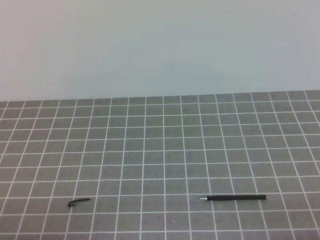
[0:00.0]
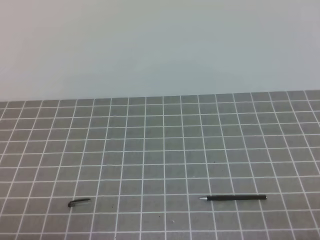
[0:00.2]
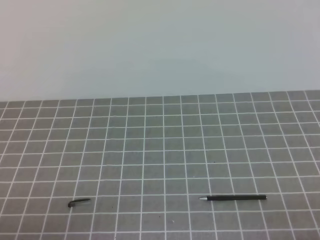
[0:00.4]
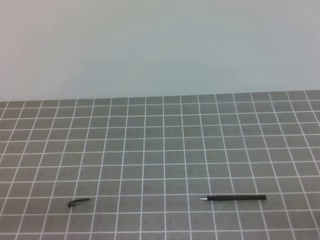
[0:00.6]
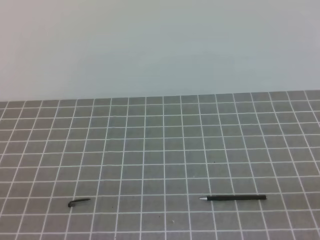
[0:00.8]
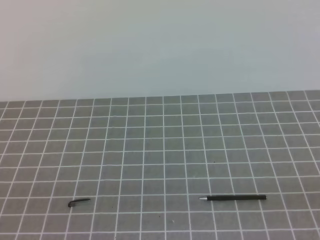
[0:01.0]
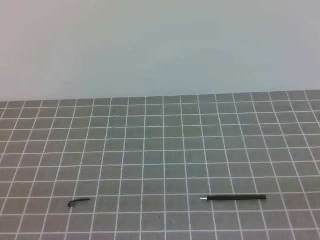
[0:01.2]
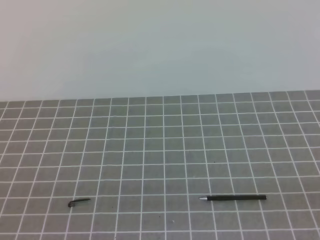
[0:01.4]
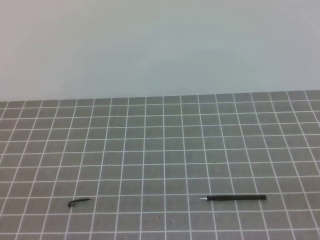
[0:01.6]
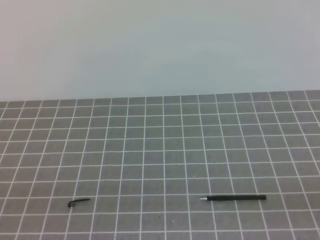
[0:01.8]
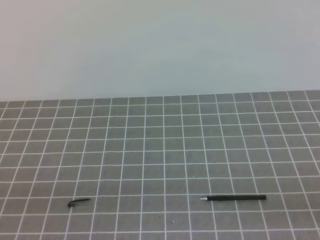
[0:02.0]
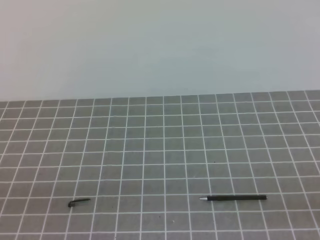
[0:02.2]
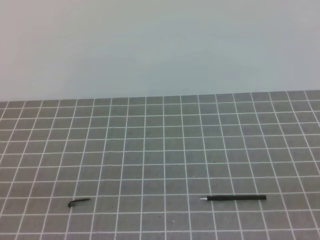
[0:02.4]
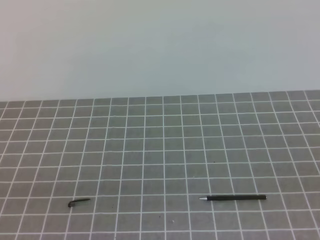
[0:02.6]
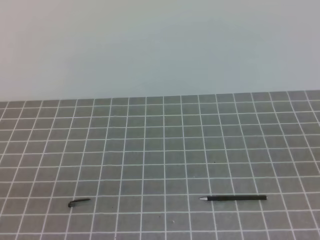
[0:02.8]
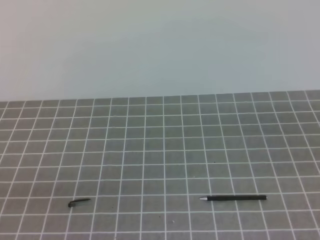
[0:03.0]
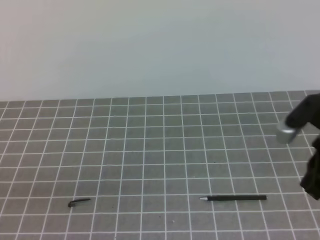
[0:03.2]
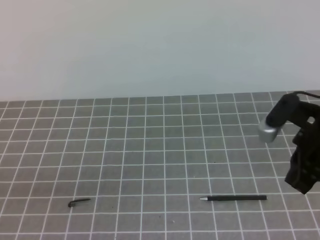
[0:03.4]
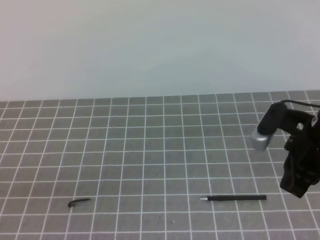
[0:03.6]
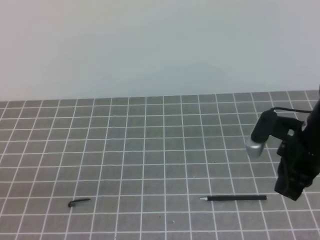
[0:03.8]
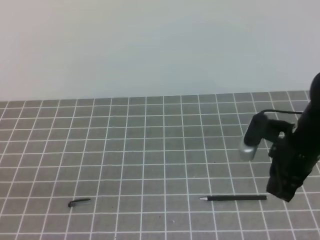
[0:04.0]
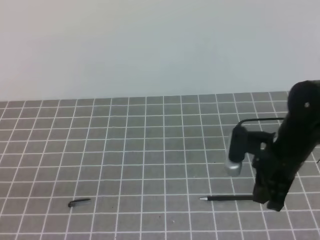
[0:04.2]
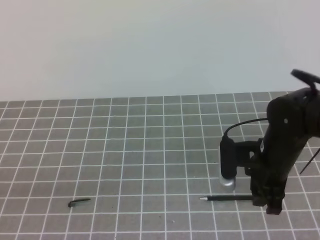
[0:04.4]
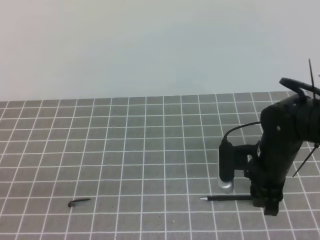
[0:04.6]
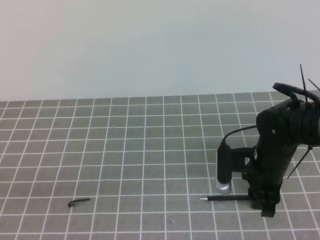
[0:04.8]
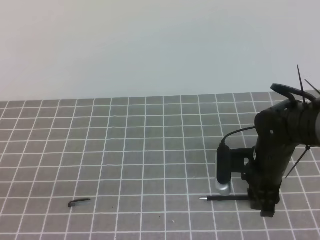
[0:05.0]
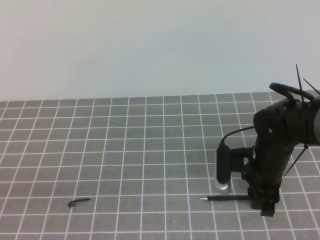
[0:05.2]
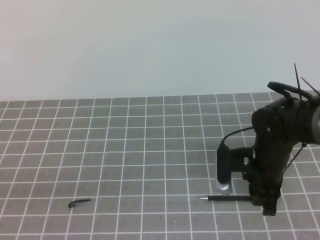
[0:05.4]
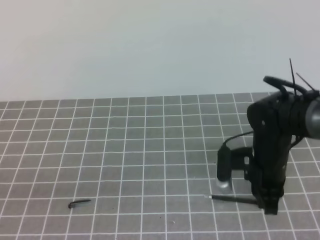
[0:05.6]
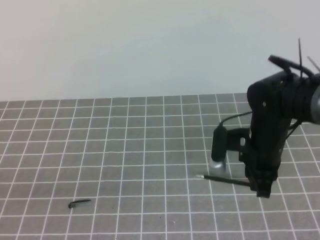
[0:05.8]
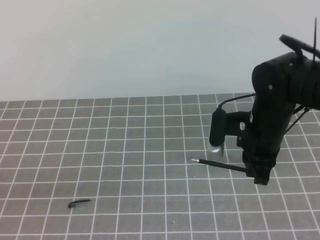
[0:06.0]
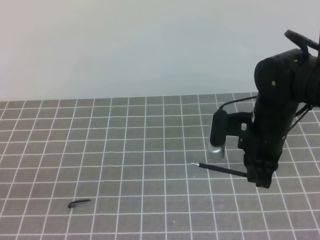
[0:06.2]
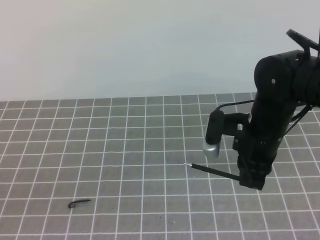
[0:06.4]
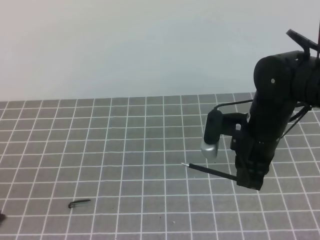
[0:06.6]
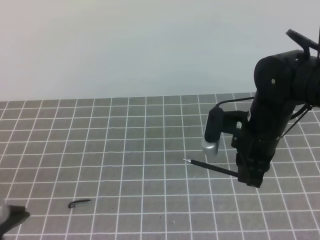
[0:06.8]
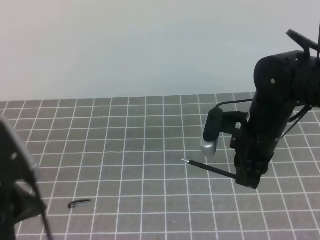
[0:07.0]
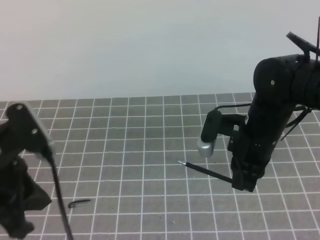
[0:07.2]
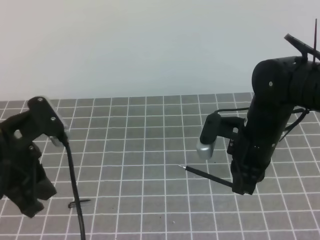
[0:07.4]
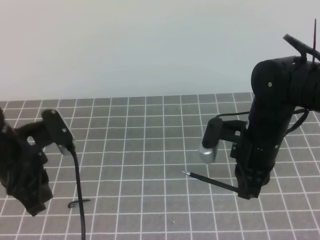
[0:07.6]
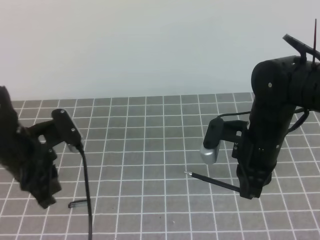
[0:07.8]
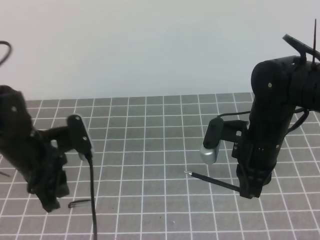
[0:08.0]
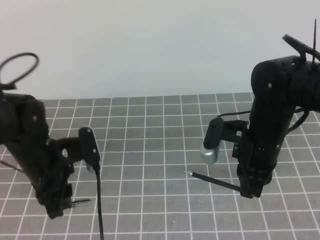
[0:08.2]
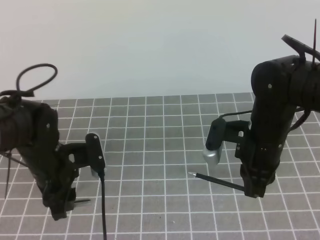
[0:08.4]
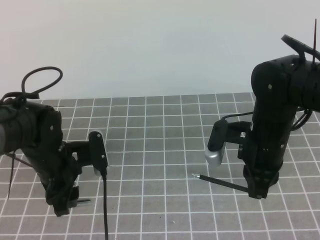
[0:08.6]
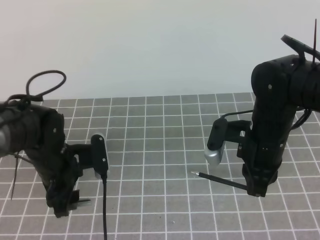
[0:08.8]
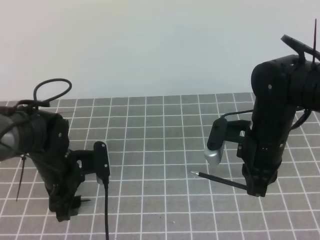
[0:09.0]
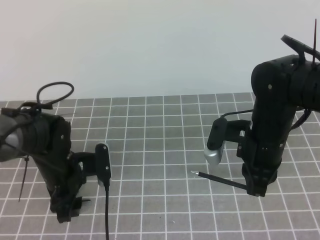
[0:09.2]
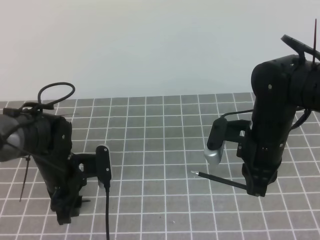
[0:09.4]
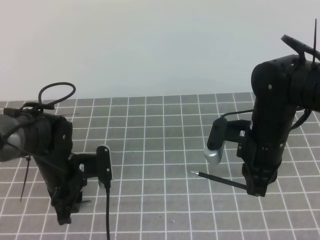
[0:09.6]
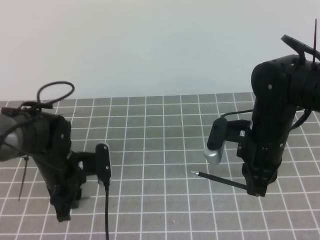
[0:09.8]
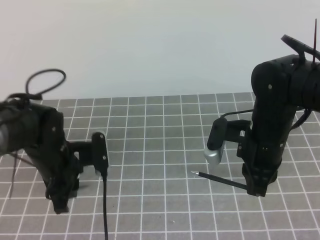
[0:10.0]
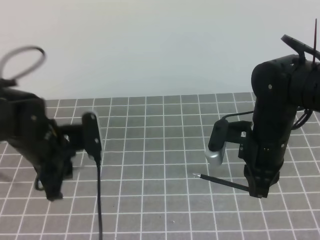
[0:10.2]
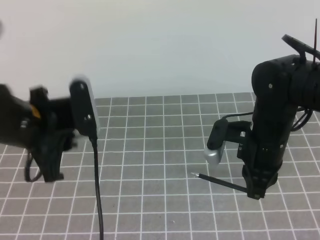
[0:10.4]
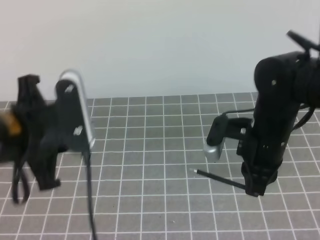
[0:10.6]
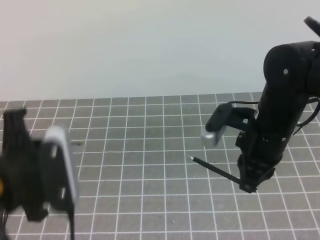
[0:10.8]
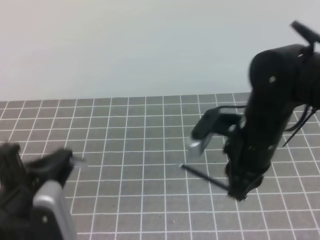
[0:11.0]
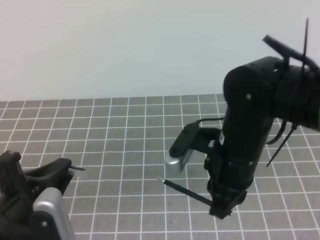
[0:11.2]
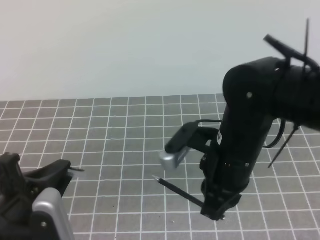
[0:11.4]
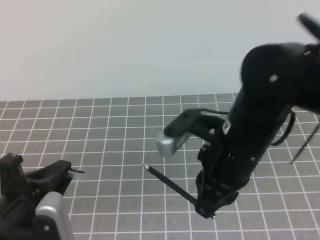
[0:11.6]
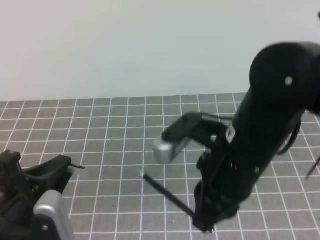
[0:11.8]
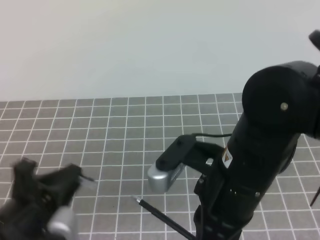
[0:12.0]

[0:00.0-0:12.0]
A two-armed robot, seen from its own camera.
Task of the whole recording: on the grey tablecloth, hold the pen cap in one hand and the pen in the other, then cover the pen cap.
Step, 0:00.0 to 0:03.6: Pick up the pen.
Step, 0:03.8 to 0:06.2: Pick up the pen cap.
0:03.0 to 0:04.4: The right gripper is displaced downward, forward and to the left by roughly 20 cm, and opens.
0:04.4 to 0:06.0: The right gripper closes its fingers.
0:06.0 to 0:07.6: The left gripper shifts some 20 cm forward.
0:07.6 to 0:09.0: The left gripper shifts approximately 10 cm downward and forward, and opens up.
0:09.0 to 0:10.4: The left gripper shifts about 15 cm upward and backward, and closes.
0:10.4 to 0:12.0: The left gripper travels backward and downward by about 15 cm, while the right gripper goes about 15 cm backward, upward and to the left.

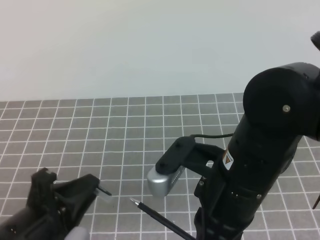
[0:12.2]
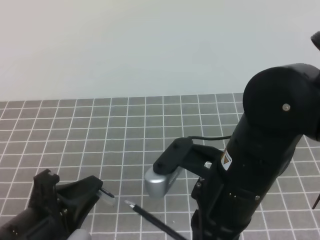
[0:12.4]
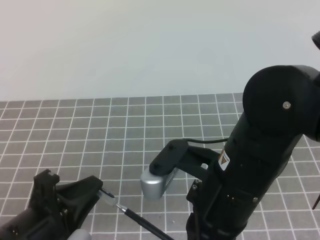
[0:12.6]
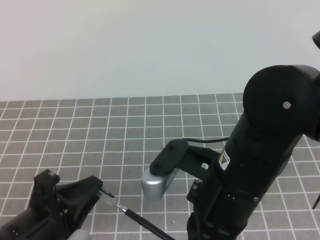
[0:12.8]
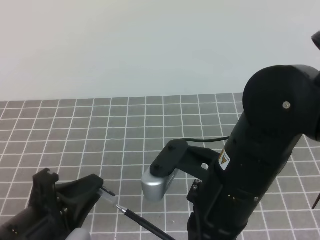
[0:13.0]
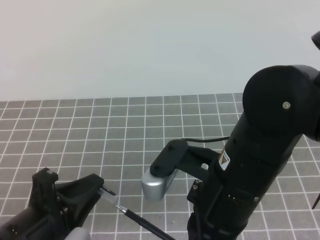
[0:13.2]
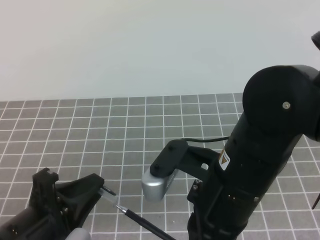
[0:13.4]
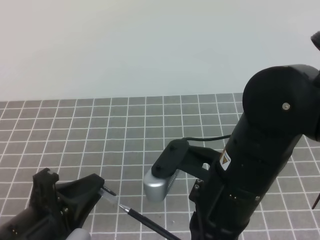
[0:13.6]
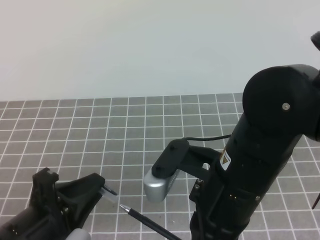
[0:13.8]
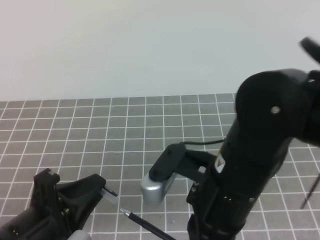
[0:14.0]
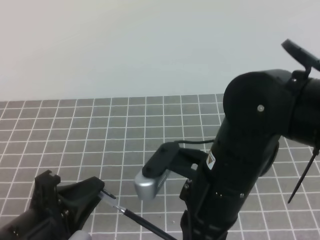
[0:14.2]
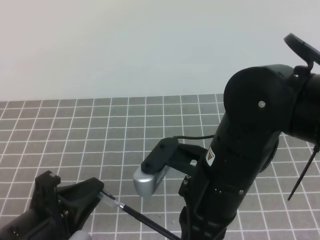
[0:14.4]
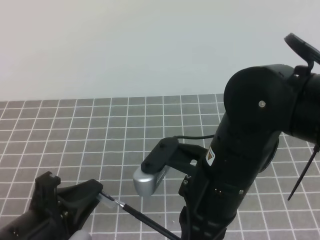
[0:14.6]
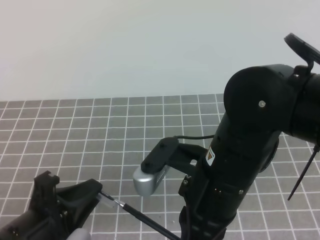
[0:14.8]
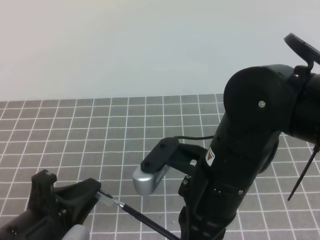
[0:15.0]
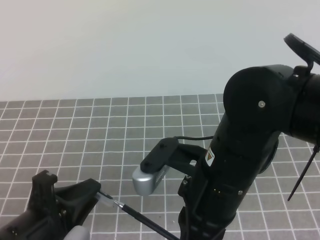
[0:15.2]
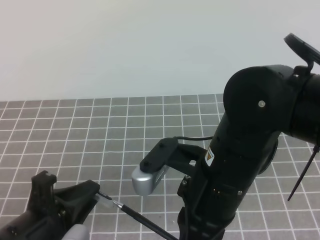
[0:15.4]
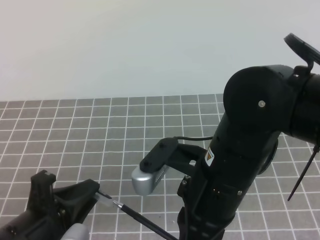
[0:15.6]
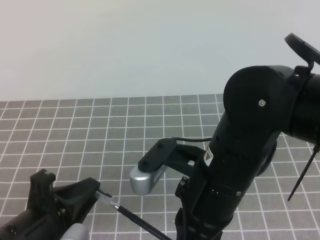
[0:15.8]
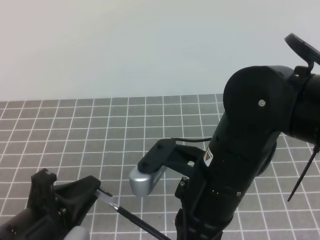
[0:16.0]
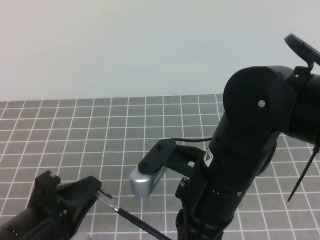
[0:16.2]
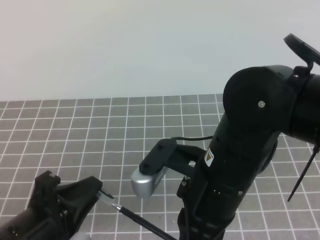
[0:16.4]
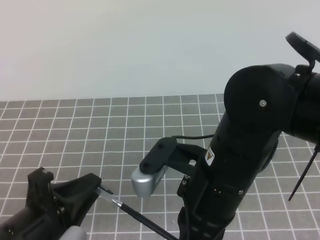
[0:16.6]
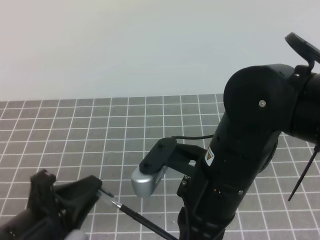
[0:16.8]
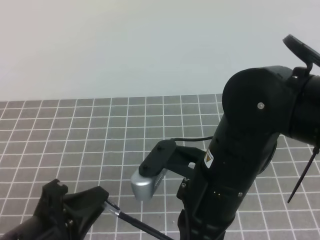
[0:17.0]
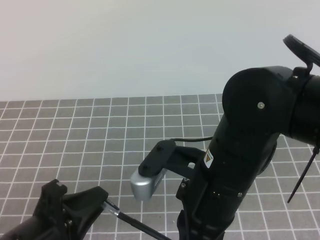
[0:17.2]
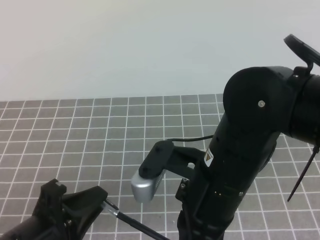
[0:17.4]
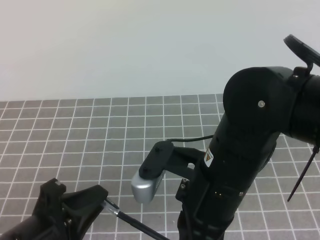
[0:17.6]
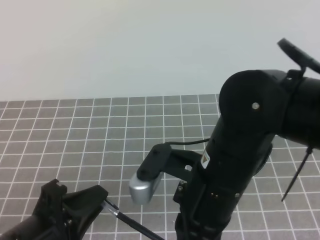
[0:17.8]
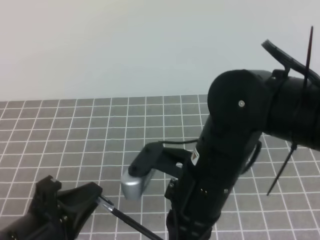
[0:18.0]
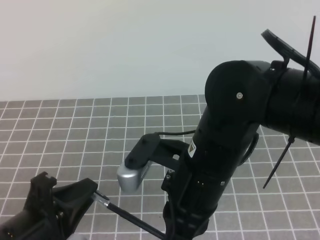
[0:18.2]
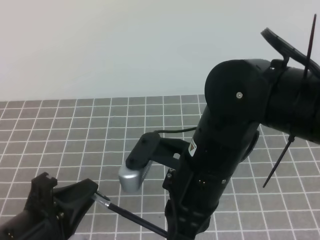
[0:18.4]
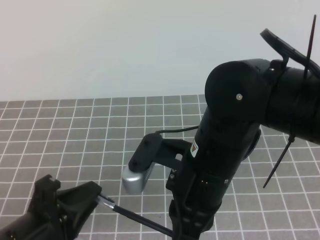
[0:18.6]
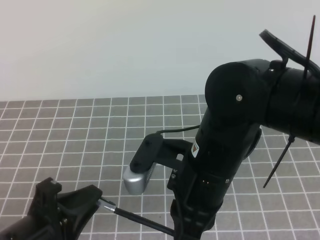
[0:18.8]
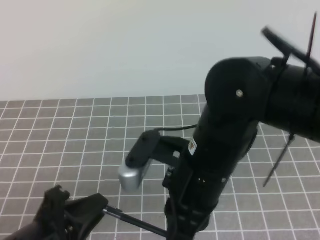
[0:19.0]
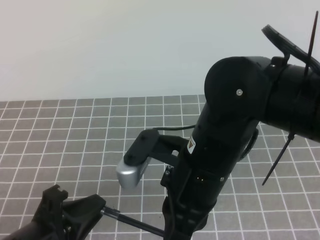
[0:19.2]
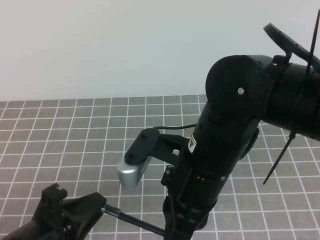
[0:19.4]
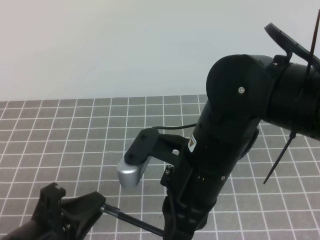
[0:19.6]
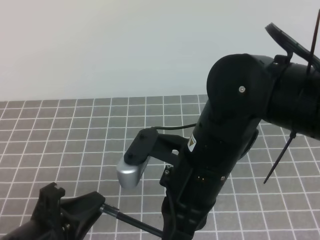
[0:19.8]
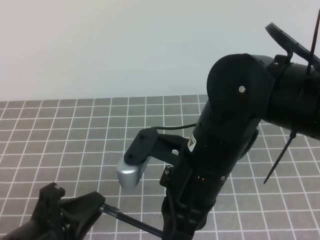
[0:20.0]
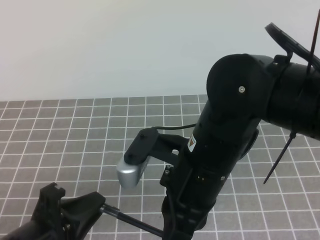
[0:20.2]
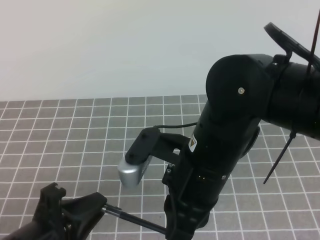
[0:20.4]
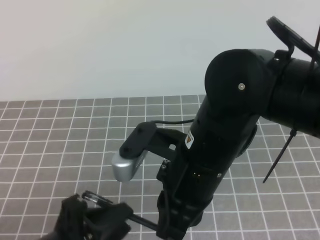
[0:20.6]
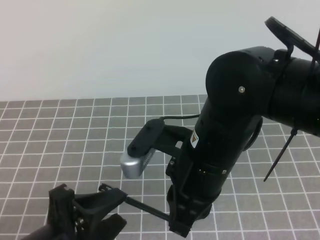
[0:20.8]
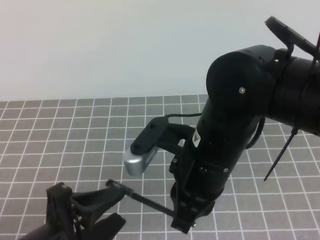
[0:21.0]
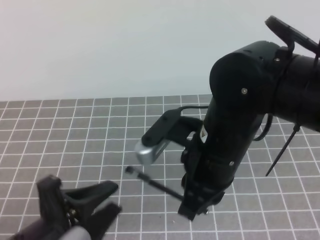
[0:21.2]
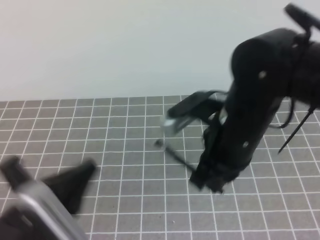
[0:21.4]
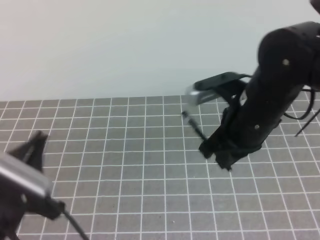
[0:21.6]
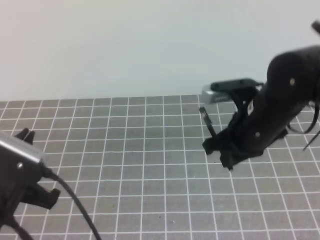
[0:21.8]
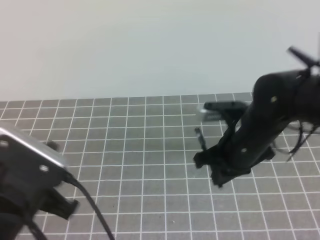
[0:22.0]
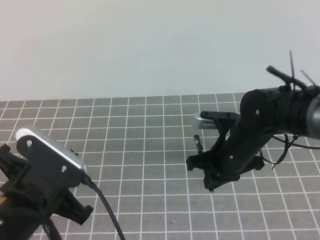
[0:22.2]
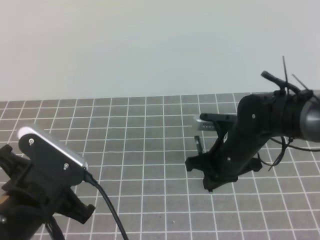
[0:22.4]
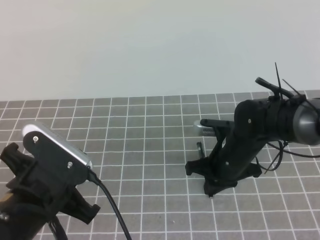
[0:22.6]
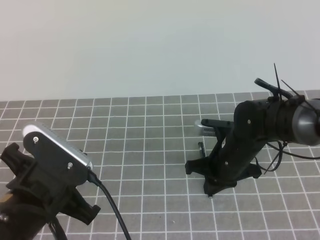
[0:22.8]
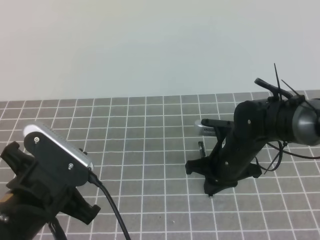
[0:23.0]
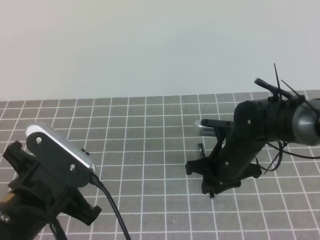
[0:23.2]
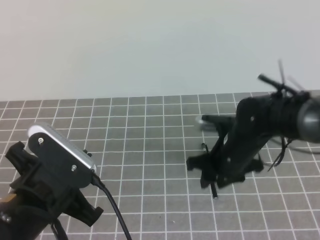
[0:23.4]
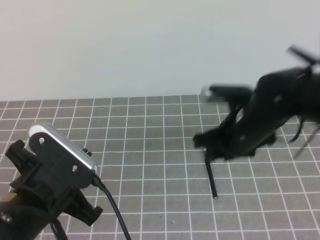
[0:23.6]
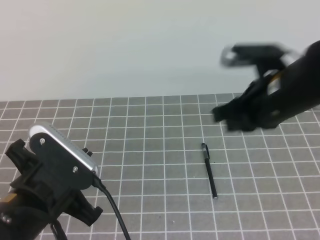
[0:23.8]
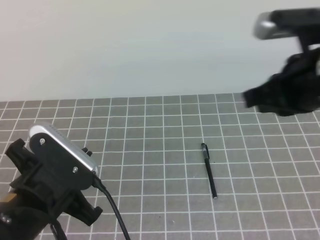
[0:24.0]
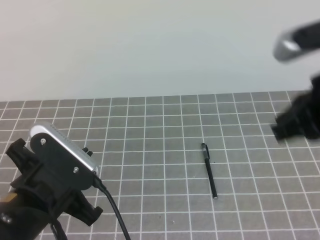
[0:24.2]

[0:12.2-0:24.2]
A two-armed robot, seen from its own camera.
Task of the whole recording: on the grey tablecloth, hold the pen cap in one hand and the pen in the other, then cover the pen cap.
Step, 0:12.6 to 0:14.0: Place the pen on the table.
0:12.2 to 0:19.8: The grippers stay close to where they were, moving slightly.
0:19.8 to 0:21.2: The left gripper opens its fingers.
0:21.2 to 0:22.6: The left gripper heads forward, covering some 5 cm, and closes, while the right gripper travels downward and forward by about 15 cm.
0:22.6 to 0:24.2: The right gripper travels upward, backward and to the right by roughly 25 cm, and opens, then closes again.
